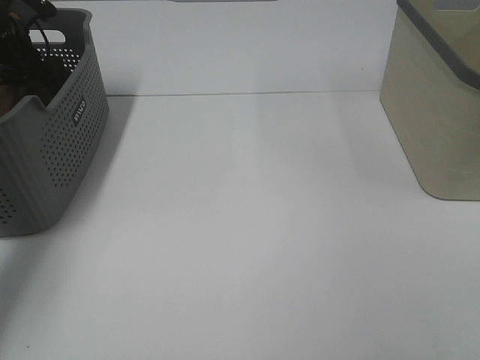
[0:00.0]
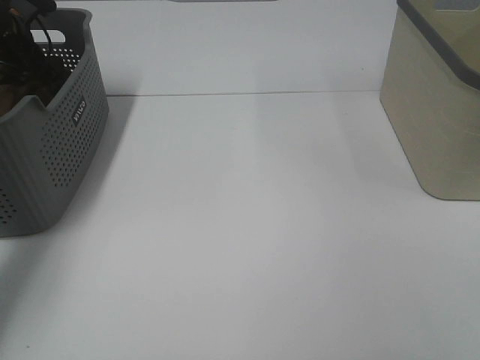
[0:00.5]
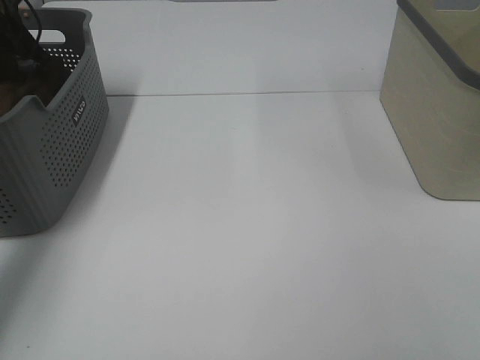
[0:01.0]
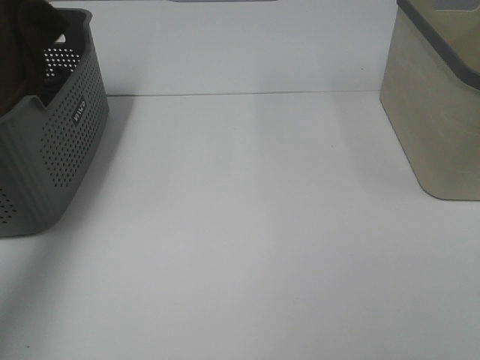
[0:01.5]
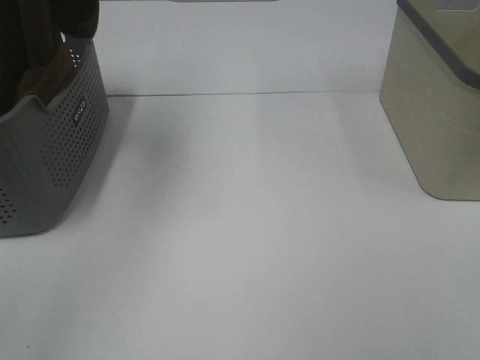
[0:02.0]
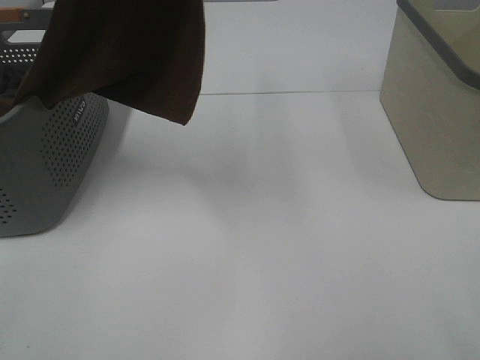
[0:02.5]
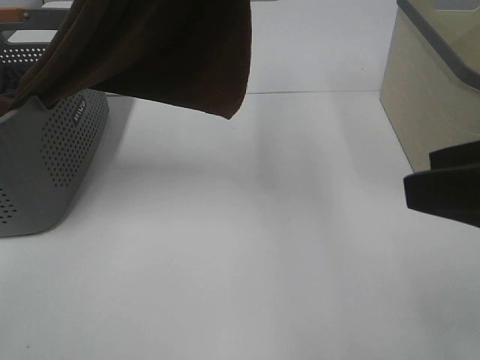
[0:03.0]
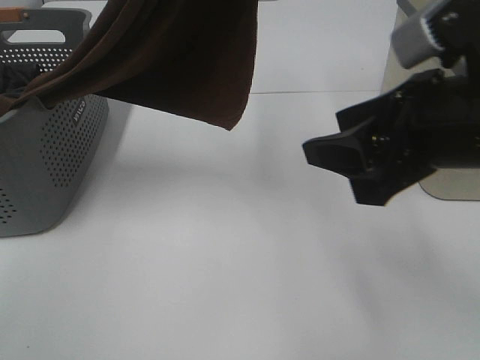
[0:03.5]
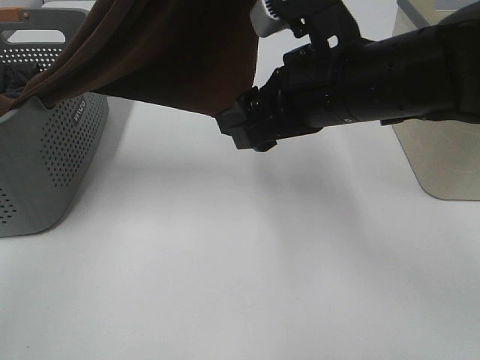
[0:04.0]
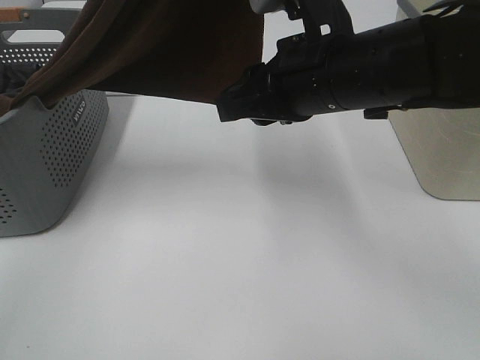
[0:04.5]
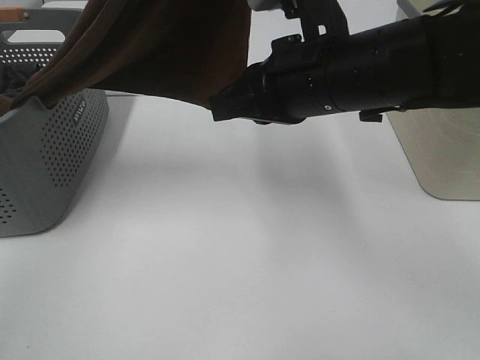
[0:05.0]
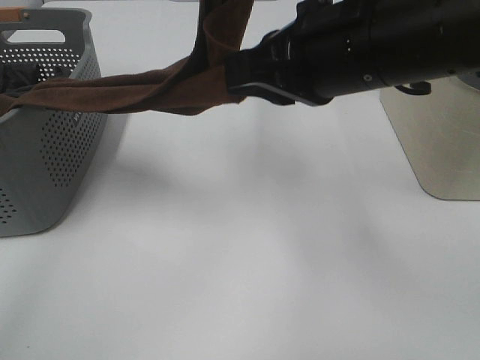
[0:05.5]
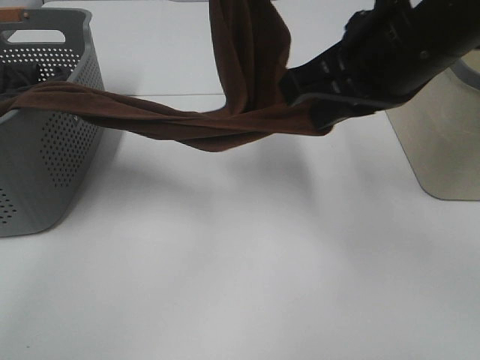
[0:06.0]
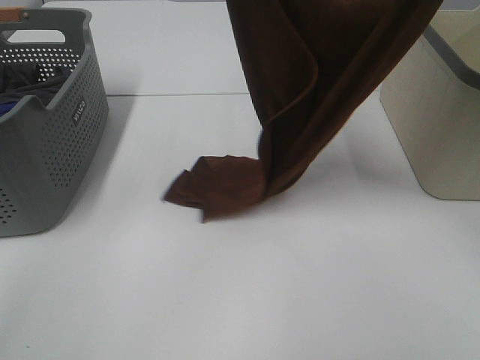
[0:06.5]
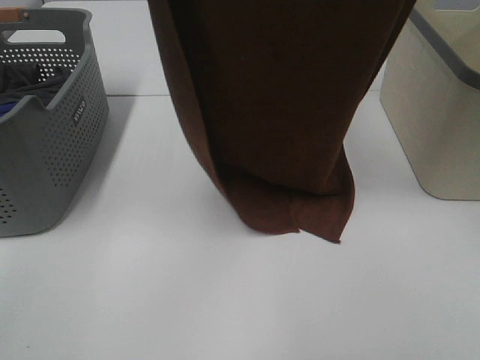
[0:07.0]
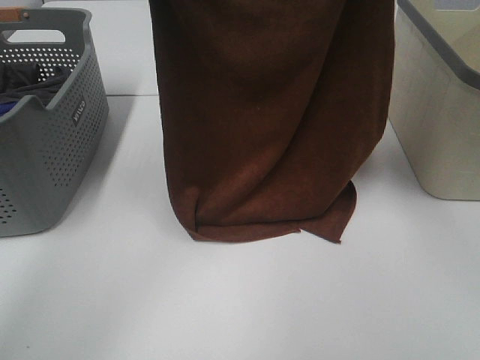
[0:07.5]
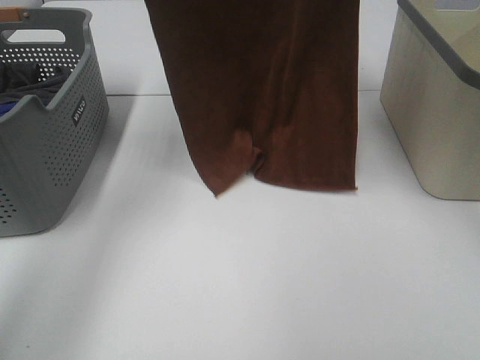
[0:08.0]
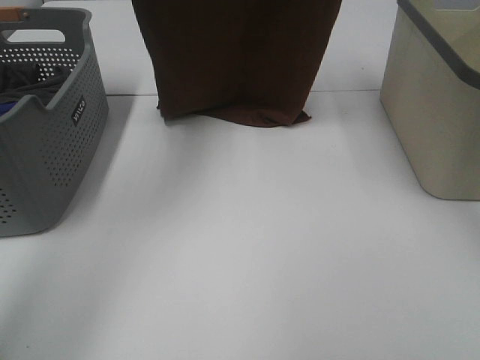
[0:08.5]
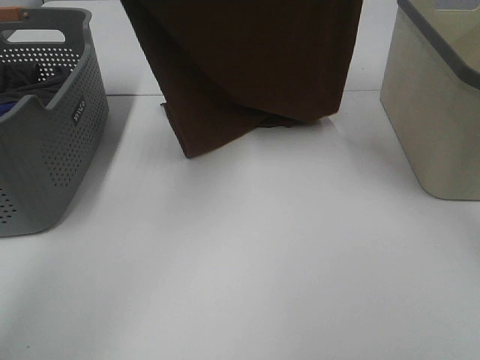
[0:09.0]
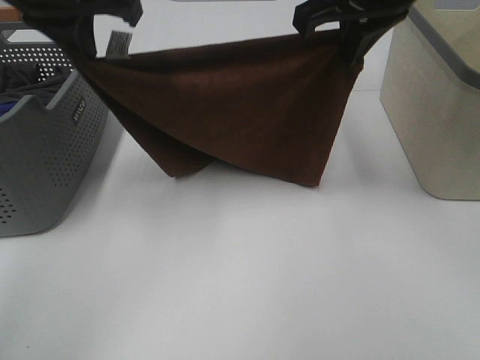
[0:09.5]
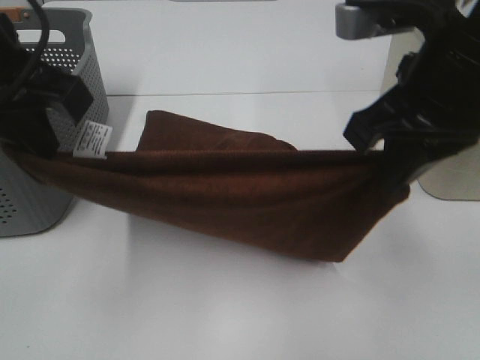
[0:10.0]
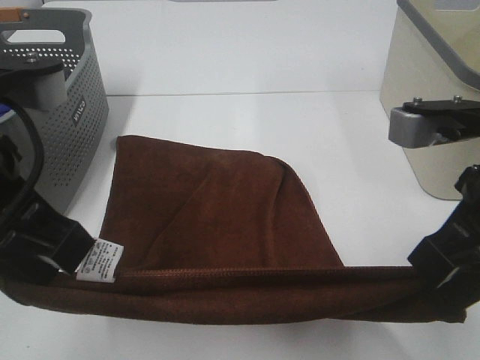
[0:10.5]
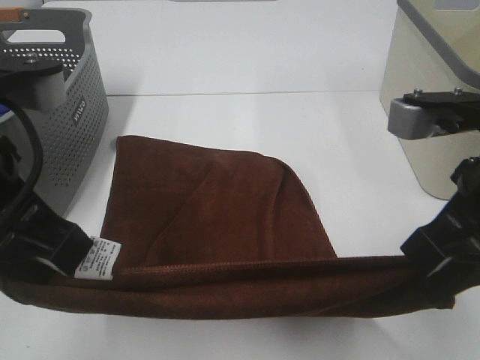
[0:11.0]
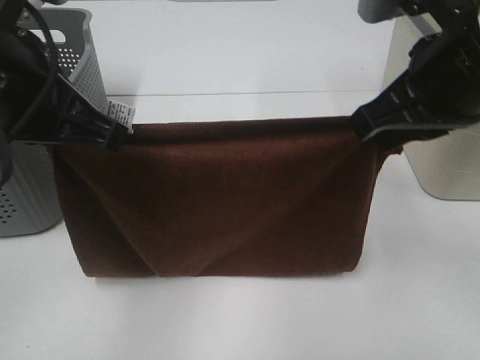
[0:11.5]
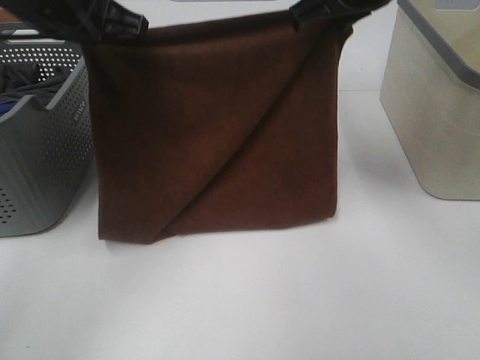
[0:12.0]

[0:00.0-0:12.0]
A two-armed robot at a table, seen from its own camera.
Task of the whole recording: Remove the towel and place it.
Step, 0:01.0 to 0:04.0: Right hand: grab a corner of the brown towel and straighten it.
Step, 0:04.5 to 0:10.5: Left hand: spread the brown towel flat on the table.
Step, 0:04.5 to 0:10.5: Right hand: spread the brown towel flat on the table.
0:00.0 to 0:02.0: The left gripper moves upward and backward, about 35 cm, and closes its fingers.
0:02.0 to 0:04.0: The left gripper travels to the right by some 15 cm, while the right gripper moves forward and to the left, roughly 30 cm.
0:04.0 to 0:06.0: The right gripper heads upward, covering approximately 5 cm, and closes. Meanwhile the left gripper shifts approximately 15 cm downward and forward.
0:06.0 to 0:08.0: The left gripper heads to the left, upward and forward, covering some 20 cm, while the right gripper moves up and down over approximately 20 cm, changing direction 2 times.
0:08.0 to 0:10.0: The right gripper is displaced downward and backward by approximately 25 cm. The left gripper is displaced backward and downward by some 25 cm.
0:10.0 to 0:12.0: Both grippers travel together forward, approximately 15 cm.

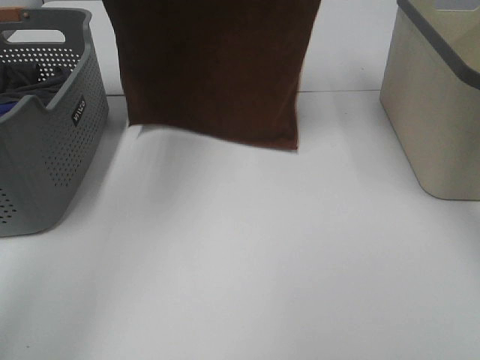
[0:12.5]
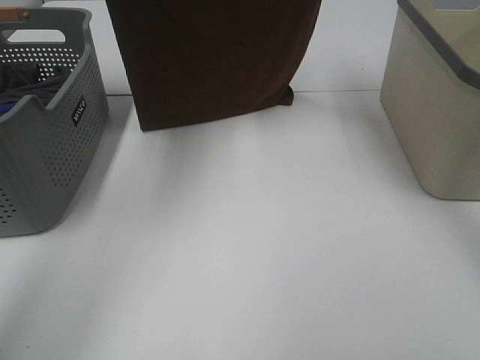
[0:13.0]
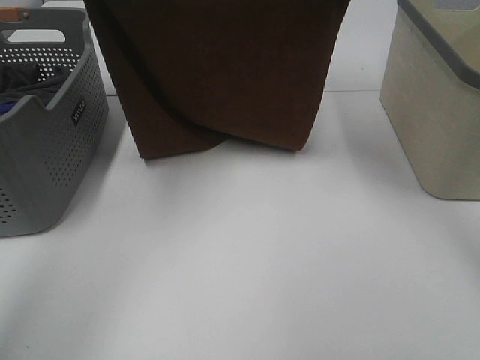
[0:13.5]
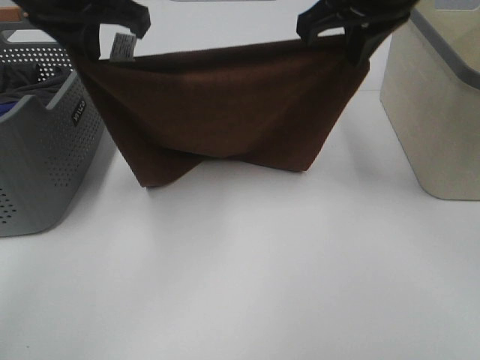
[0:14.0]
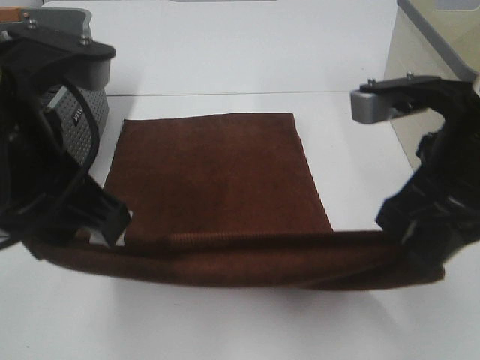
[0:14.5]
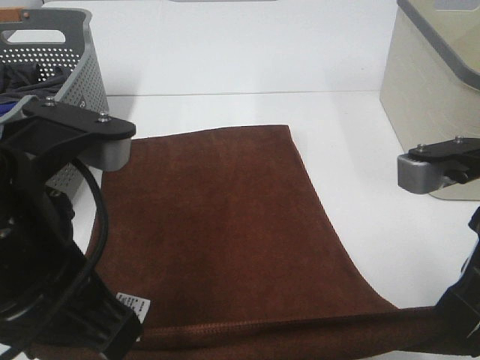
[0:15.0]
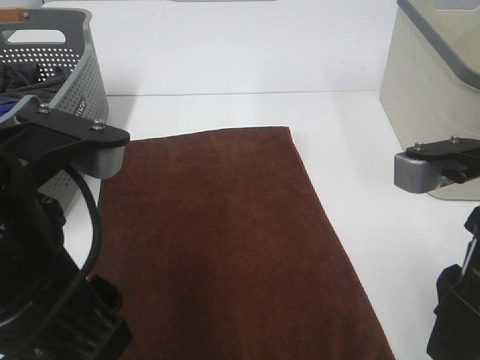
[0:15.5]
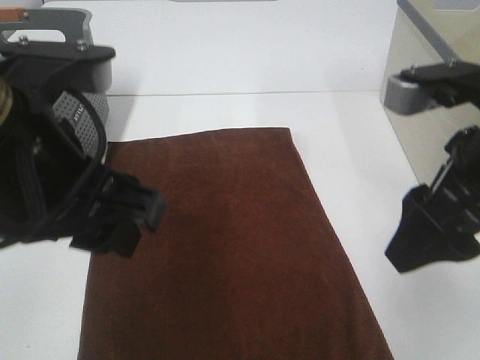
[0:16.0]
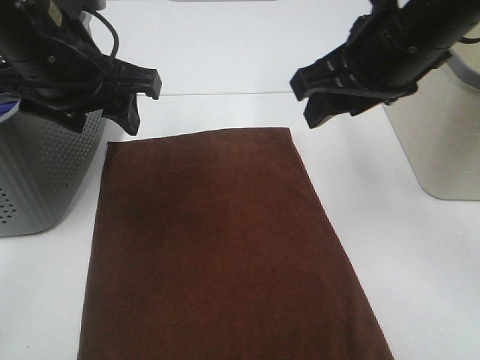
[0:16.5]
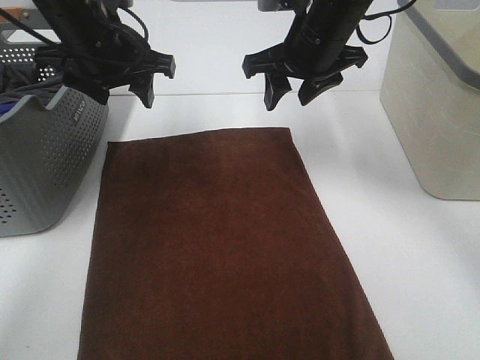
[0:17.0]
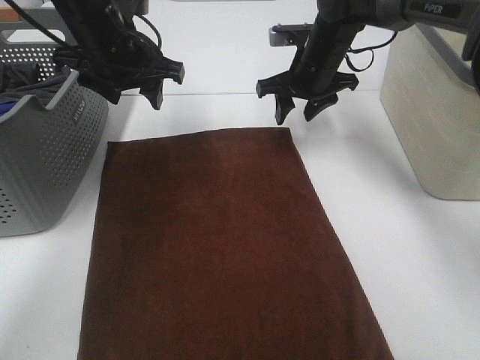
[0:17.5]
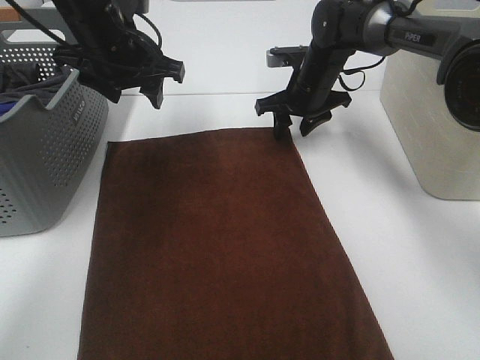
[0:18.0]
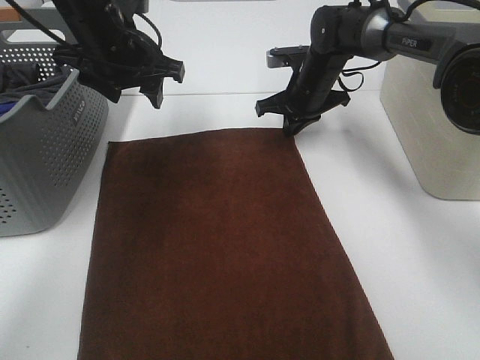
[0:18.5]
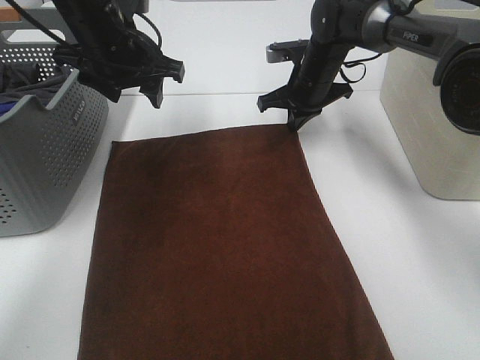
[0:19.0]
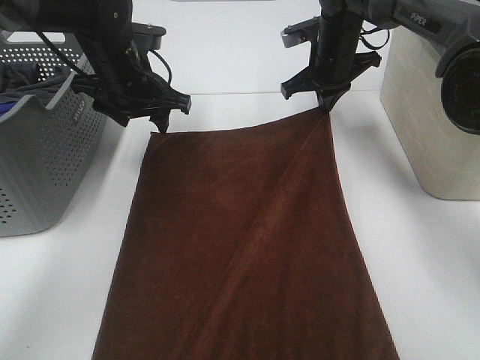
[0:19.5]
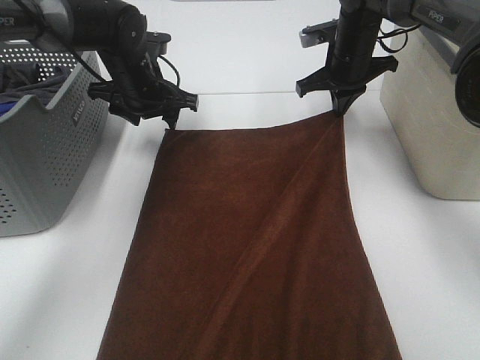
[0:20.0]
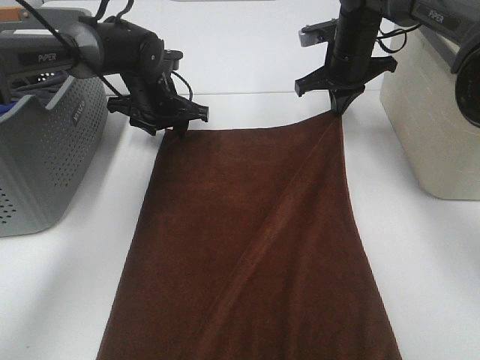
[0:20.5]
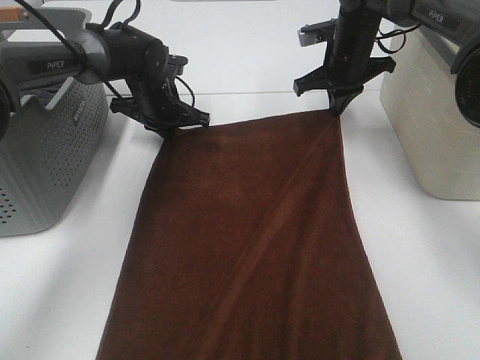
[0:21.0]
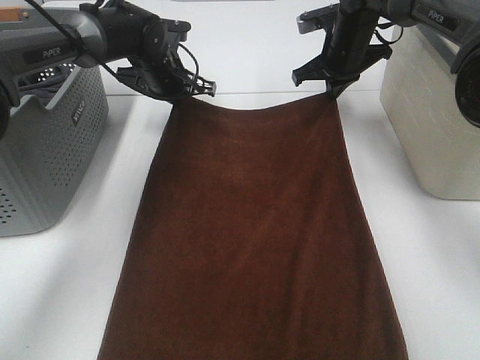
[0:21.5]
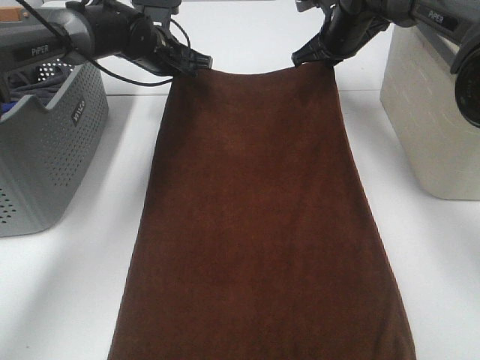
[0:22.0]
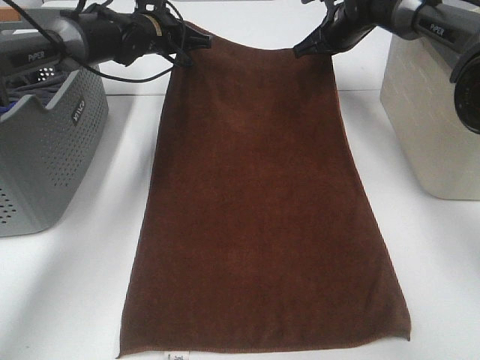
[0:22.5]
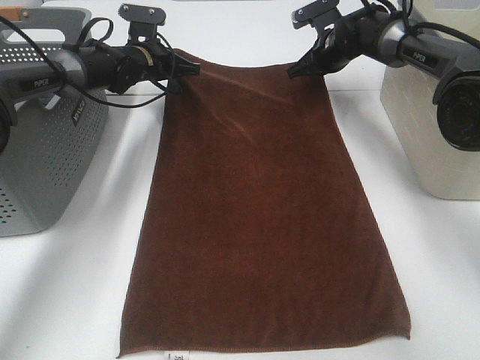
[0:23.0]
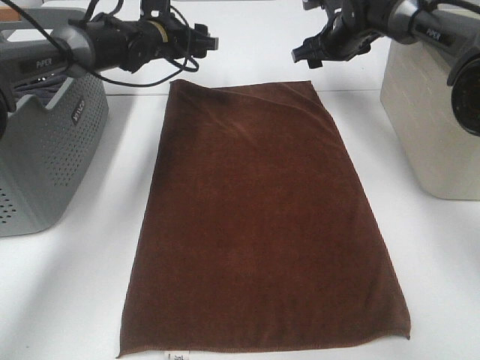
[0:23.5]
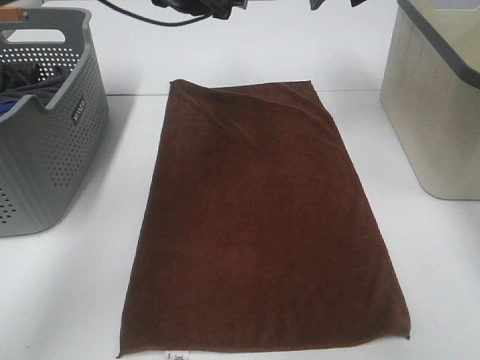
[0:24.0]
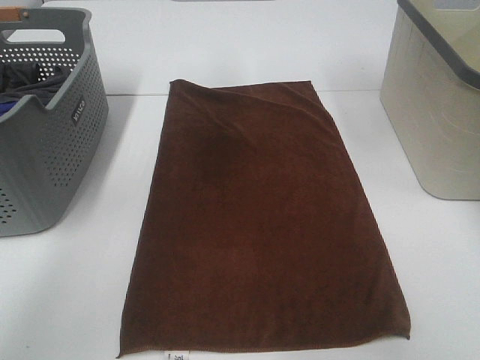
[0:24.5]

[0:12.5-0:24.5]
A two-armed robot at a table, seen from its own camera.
Task of the whole recording: Remove the towel and place it.
Step, 0:12.5 to 0:16.5: Left hand:adjust the brown towel.
Step, 0:12.5 to 0:16.5: Right hand:adjust the brown towel.
0:12.5 to 0:14.5: Both grippers travel together downward and backward, roughly 35 cm.
0:14.5 to 0:16.5: Both grippers move forward, some 10 cm. The right gripper opens; the left gripper opens its fingers.
0:16.5 to 0:18.5: The right gripper is displaced forward and downward by about 30 cm, and closes, while the left gripper is displaced forward by approximately 10 cm.
0:18.5 to 0:20.5: The right gripper shifts approximately 5 cm upward. The left gripper heads downward and forward, covering about 15 cm.
0:20.5 to 0:22.5: The left gripper is displaced forward and upward by some 10 cm, and closes. The right gripper goes about 5 cm forward.
0:22.5 to 0:24.5: The two grippers go approximately 25 cm upward and backward. The left gripper opens up. The right gripper opens its fingers.

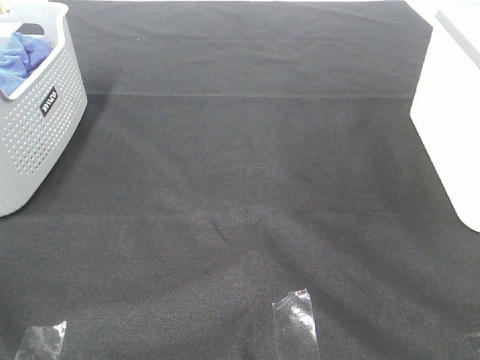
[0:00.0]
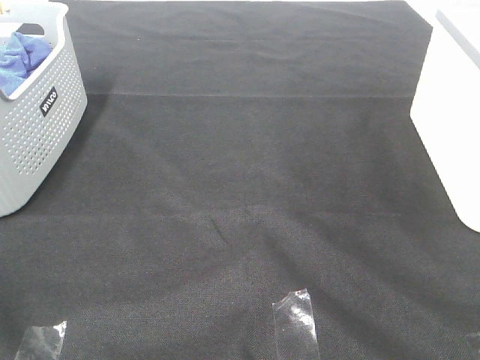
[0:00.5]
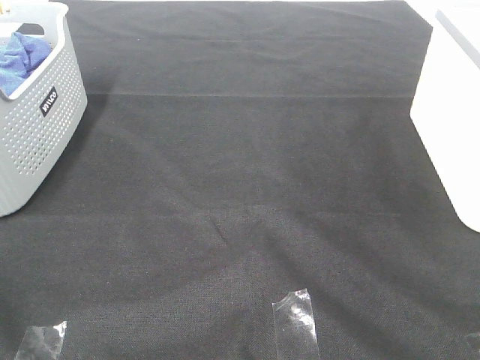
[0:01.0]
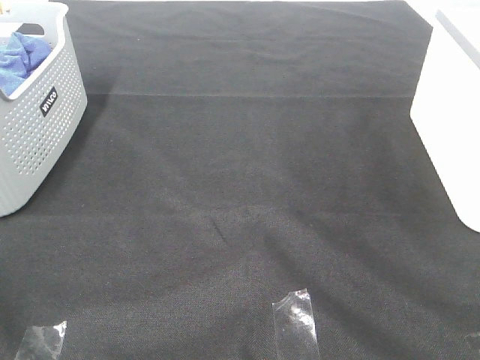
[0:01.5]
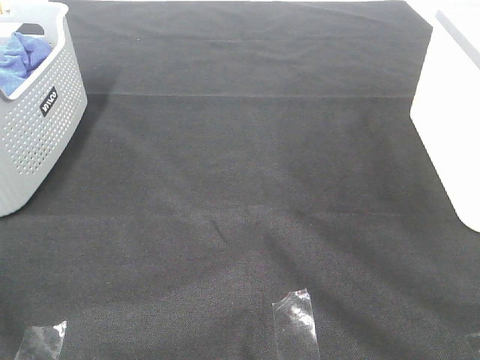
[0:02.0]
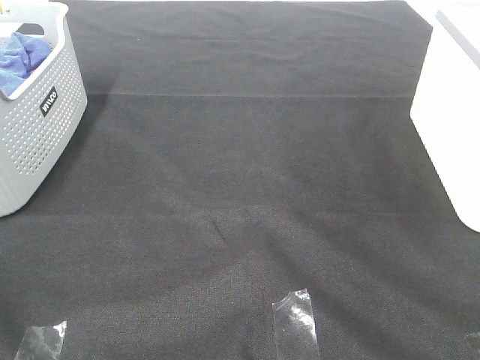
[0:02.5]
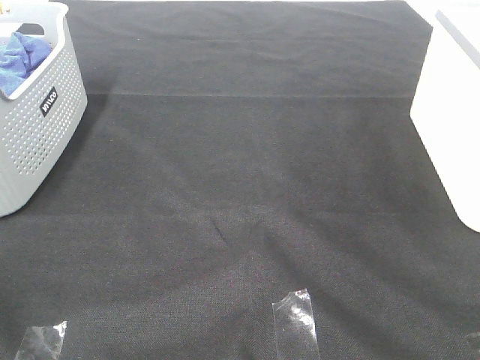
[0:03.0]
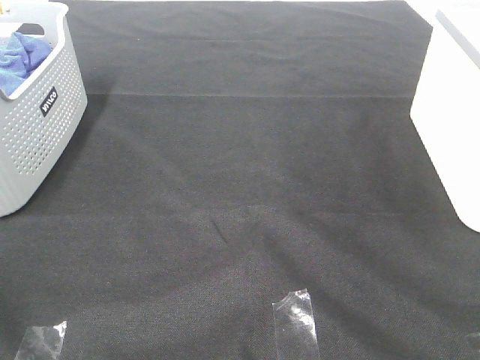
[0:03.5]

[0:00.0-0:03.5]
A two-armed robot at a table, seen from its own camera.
Task of the whole recording: Remove the towel and place it.
0:00.0 to 0:02.0: Both grippers stay about where they are.
